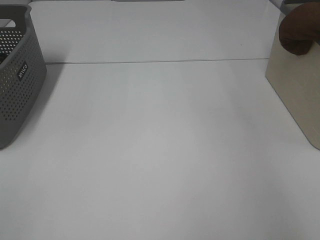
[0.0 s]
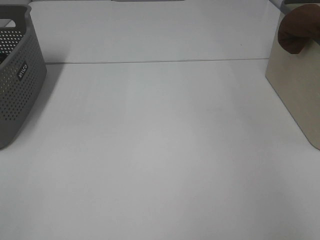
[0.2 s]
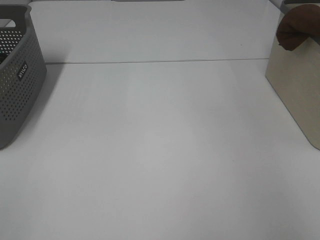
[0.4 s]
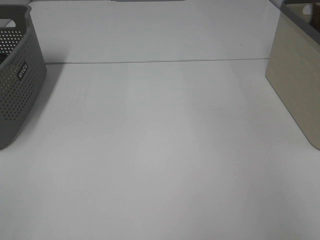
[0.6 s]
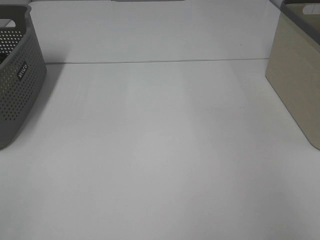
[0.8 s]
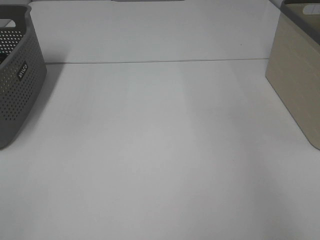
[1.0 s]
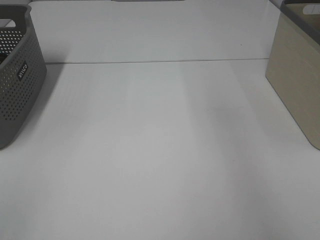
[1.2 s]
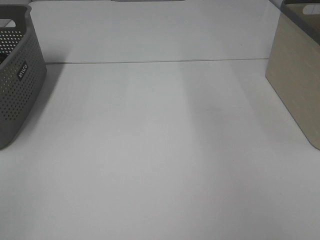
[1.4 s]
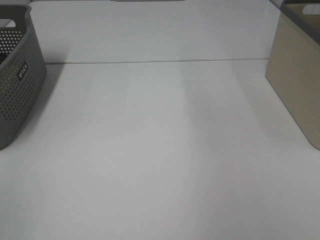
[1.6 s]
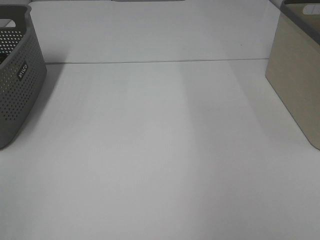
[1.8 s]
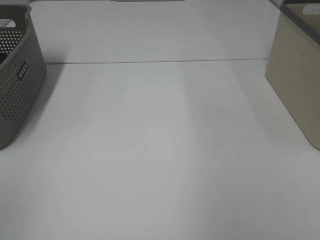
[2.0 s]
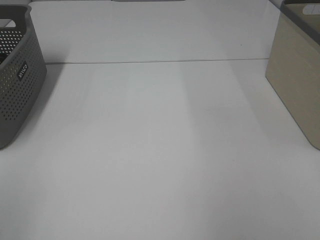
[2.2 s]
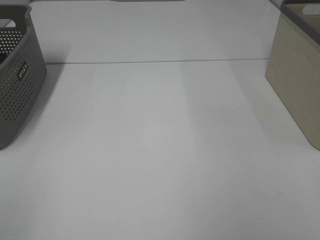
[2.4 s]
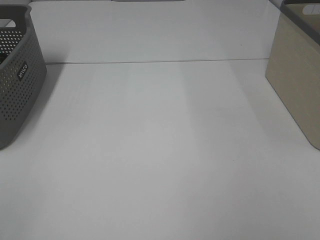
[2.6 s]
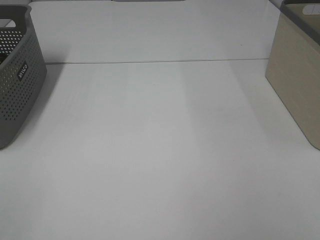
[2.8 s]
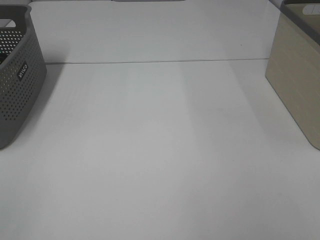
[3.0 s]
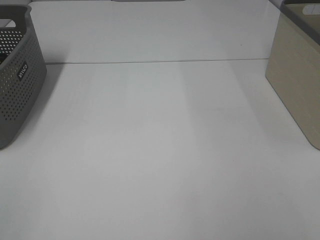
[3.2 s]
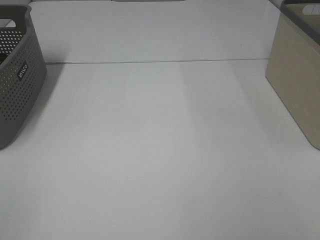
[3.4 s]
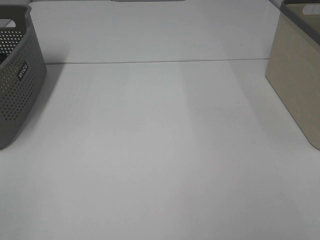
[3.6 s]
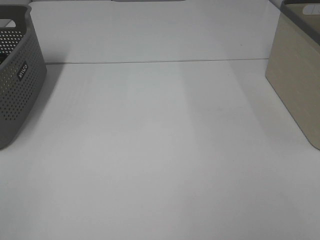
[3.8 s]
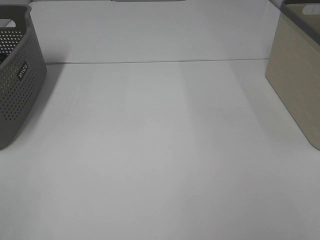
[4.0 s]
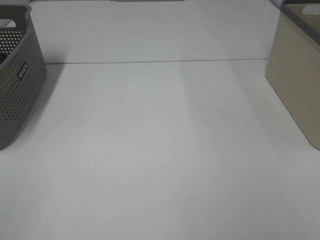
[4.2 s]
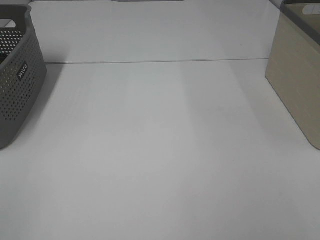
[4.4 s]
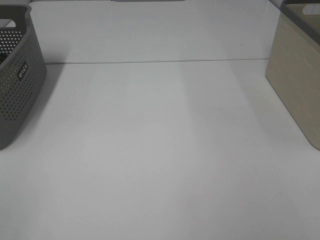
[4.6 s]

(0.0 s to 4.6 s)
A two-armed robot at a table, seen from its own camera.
0.0 s - 1.6 s: The right gripper is displaced to the left and backward by some 15 cm, and opens its fingers.

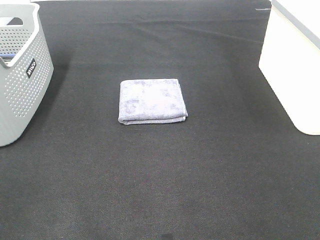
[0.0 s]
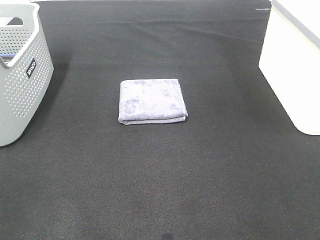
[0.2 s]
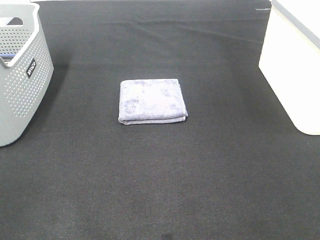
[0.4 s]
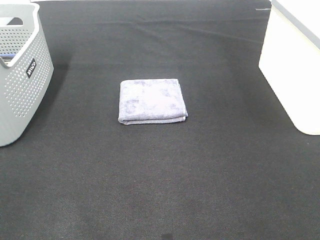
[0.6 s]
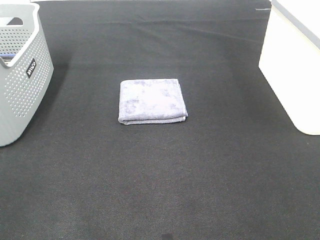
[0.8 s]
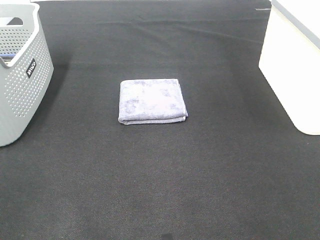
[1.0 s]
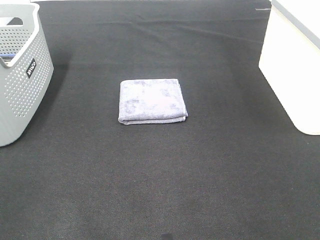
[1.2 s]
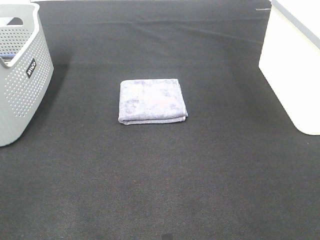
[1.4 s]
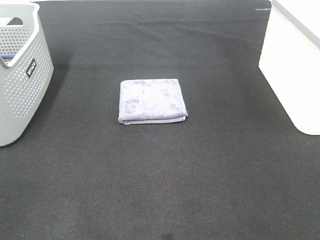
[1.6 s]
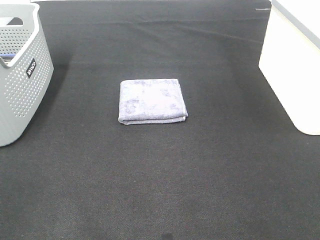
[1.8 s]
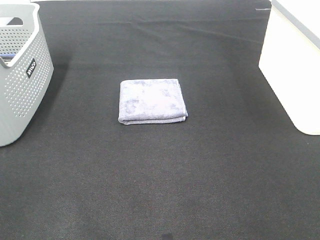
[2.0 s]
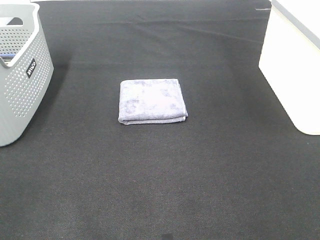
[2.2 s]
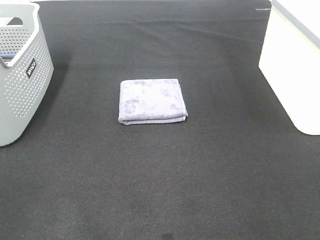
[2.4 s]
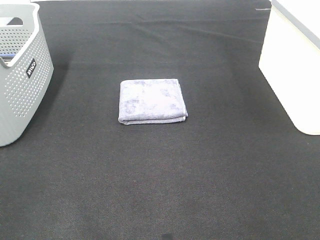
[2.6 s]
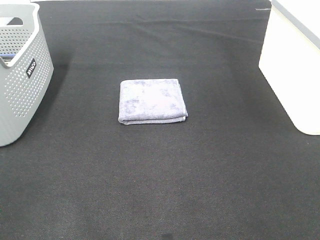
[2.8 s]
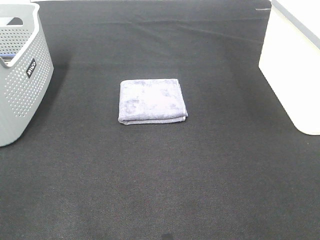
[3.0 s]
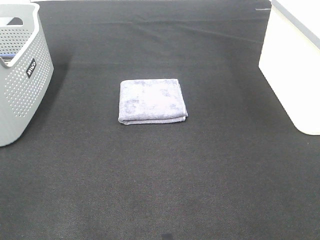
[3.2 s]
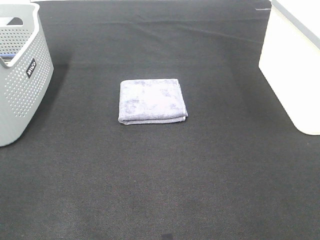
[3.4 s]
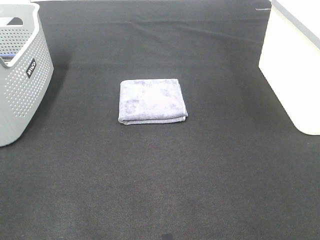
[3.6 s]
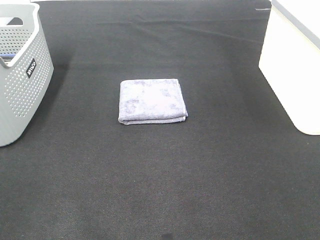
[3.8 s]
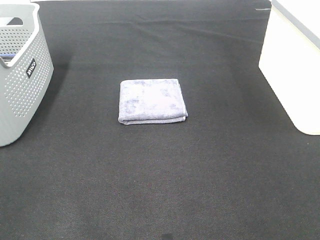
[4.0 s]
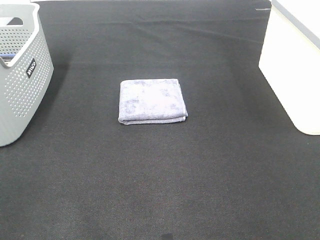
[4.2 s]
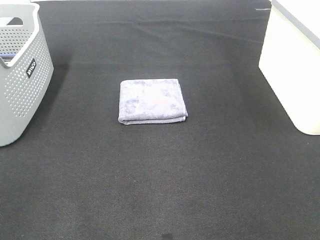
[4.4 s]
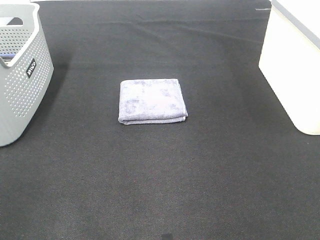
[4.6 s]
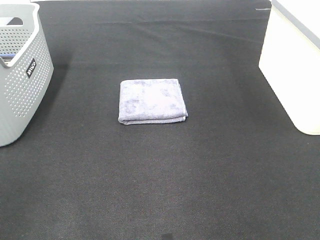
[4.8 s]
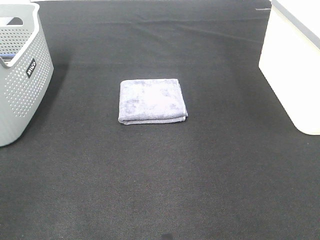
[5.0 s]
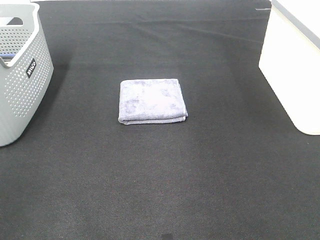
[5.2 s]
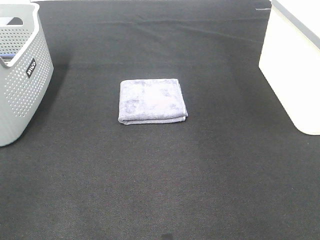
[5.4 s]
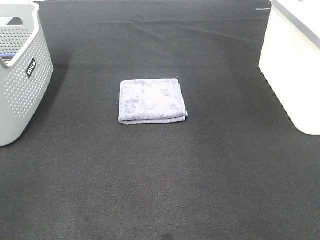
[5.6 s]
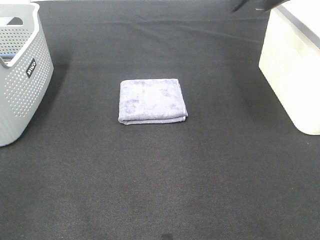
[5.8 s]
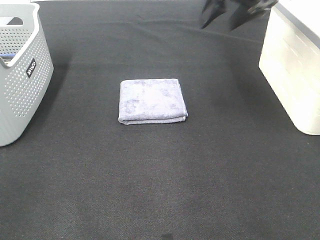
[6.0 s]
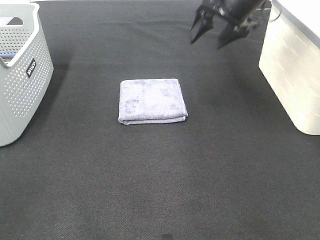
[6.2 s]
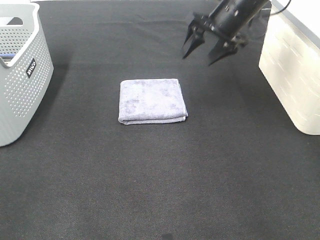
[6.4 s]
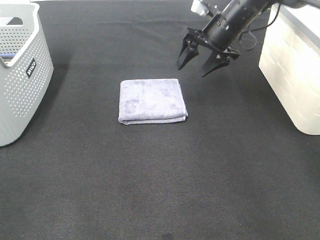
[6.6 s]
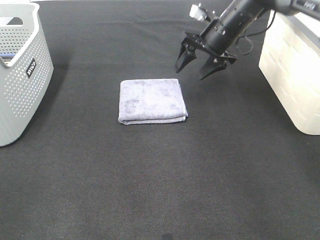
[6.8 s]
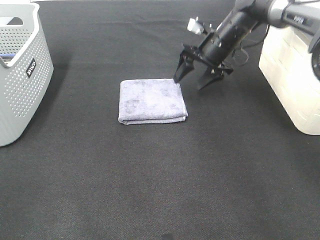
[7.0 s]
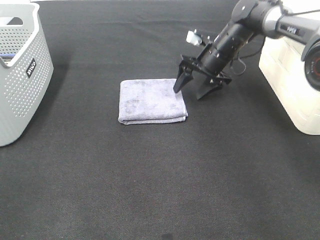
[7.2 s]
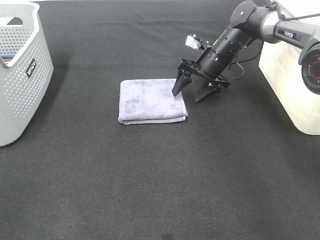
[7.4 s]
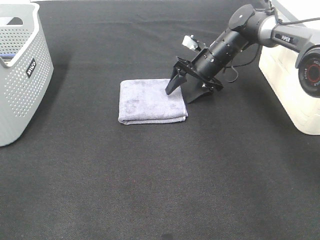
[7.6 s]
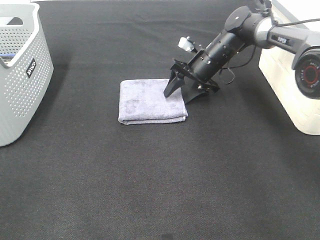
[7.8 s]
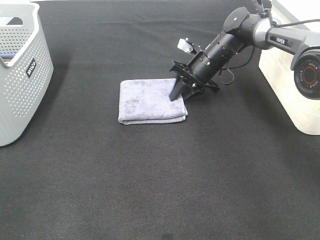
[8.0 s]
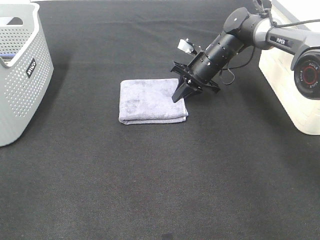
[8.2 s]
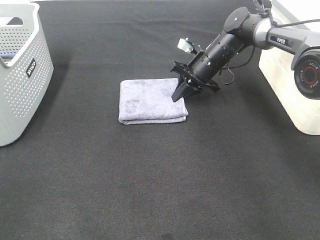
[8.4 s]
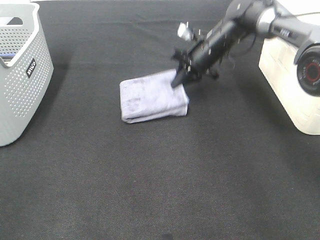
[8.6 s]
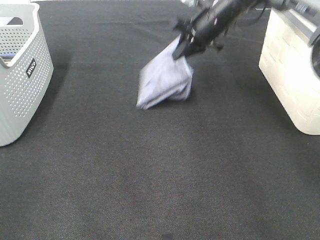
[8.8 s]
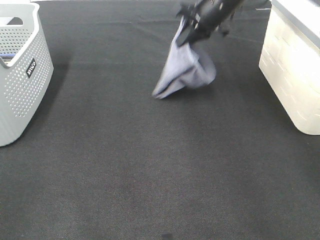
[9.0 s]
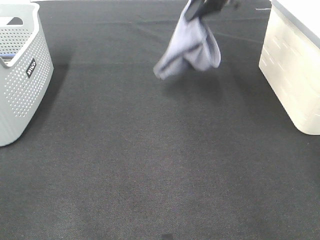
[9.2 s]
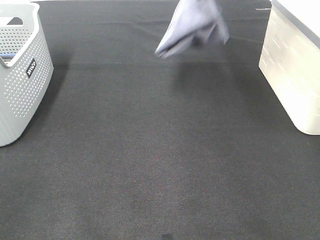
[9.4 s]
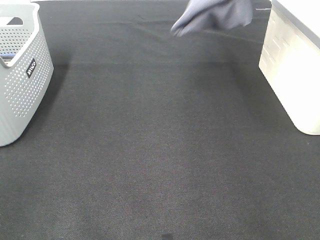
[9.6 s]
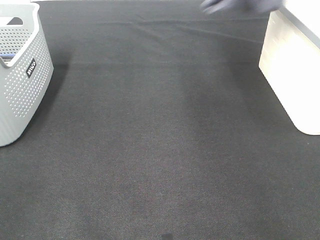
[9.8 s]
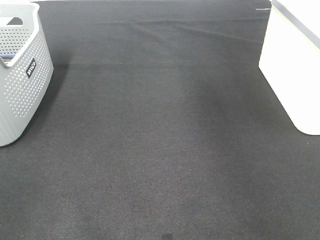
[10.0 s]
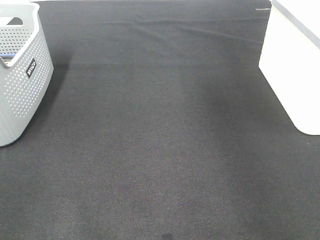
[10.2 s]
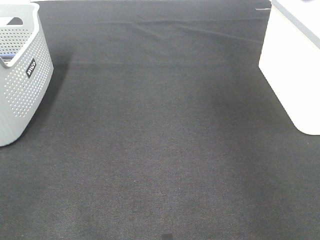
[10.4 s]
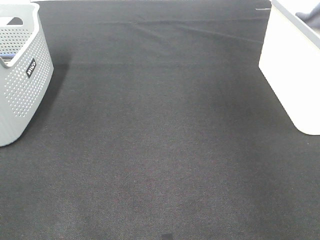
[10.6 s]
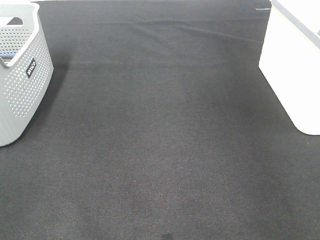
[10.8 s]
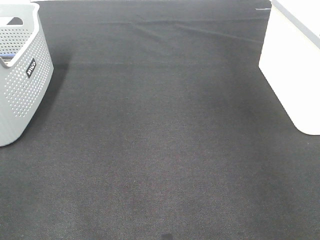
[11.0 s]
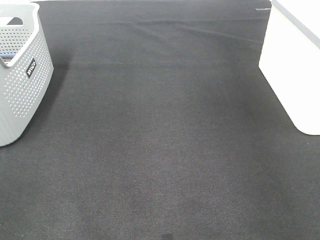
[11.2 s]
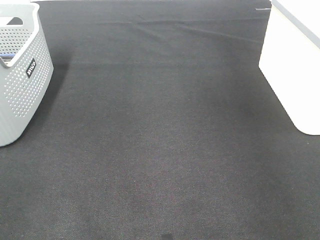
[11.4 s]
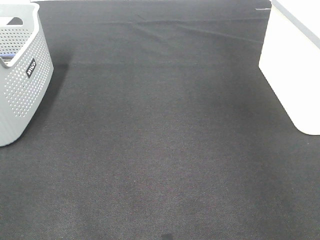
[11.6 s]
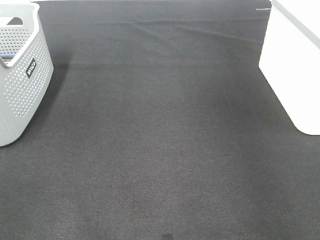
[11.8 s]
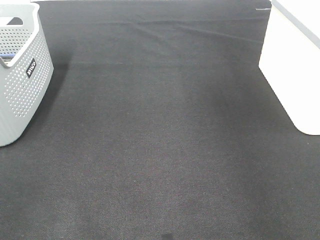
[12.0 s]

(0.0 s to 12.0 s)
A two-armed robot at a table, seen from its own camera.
Step, 0.0 s - 8.2 s: Right hand: grab the folded grey towel.
Step, 8.4 s - 11.4 s: Right hand: place the grey towel in right basket.
0.0 s - 3.0 s: The two grippers keep their place.
4.4 s - 6.0 s: The right gripper travels forward by approximately 35 cm.
6.0 s - 7.6 s: The right gripper moves downward, about 20 cm.
7.6 s - 9.0 s: The right gripper is displaced upward by approximately 15 cm, and closes.
9.0 s - 10.4 s: The right gripper shifts roughly 30 cm to the right and upward.

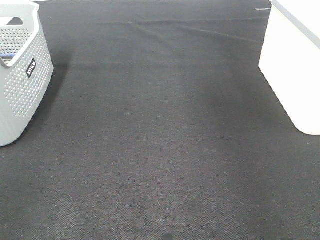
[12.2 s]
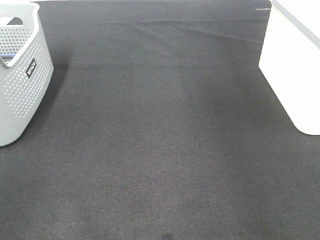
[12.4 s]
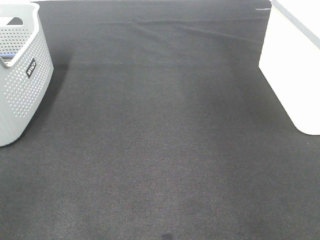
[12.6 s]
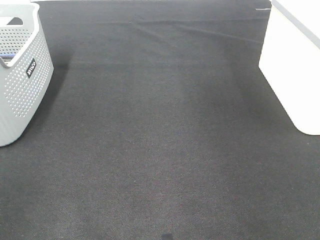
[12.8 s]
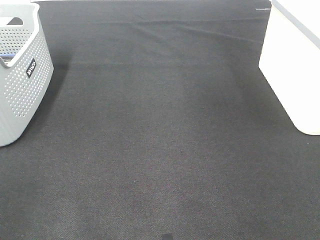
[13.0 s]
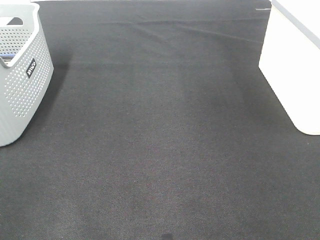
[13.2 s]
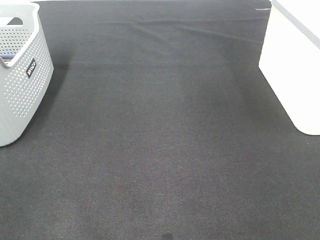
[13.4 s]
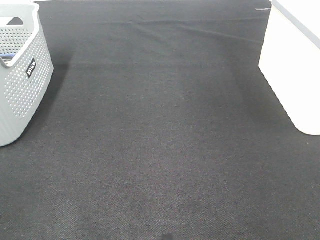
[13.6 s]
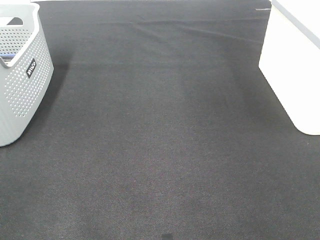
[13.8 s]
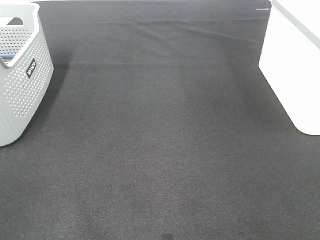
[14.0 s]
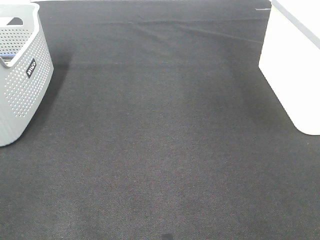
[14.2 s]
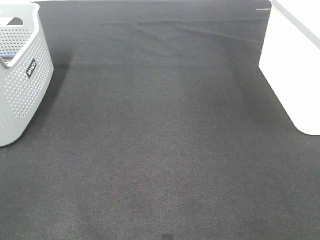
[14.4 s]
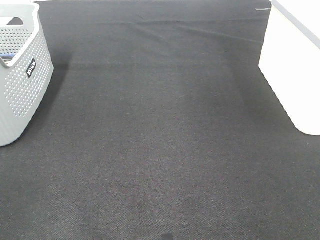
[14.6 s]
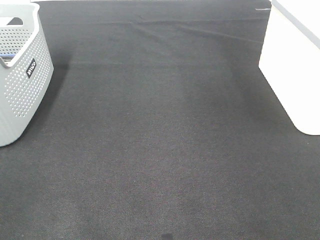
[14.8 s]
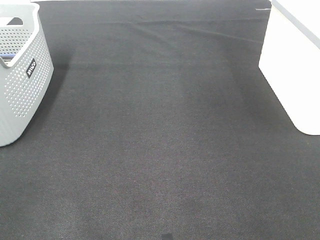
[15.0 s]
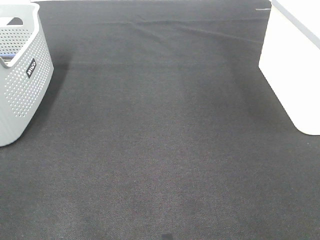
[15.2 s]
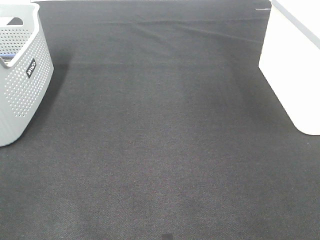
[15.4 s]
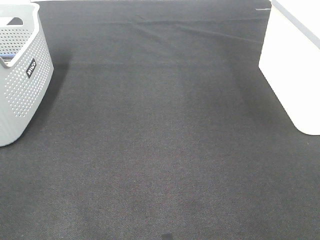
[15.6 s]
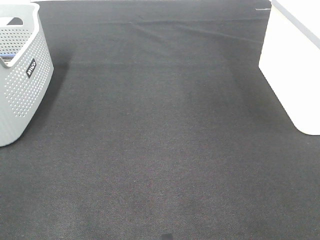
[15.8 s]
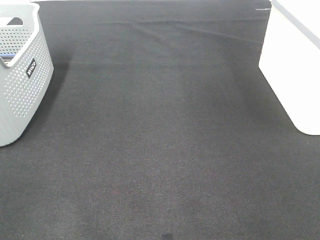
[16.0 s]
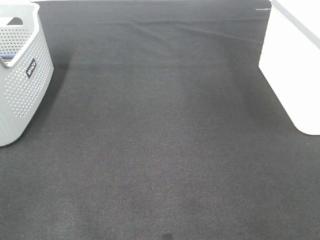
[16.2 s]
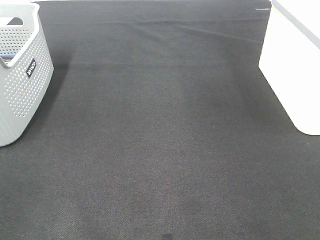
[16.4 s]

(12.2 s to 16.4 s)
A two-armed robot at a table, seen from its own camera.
15.0 s - 16.4 s: The two grippers keep their place.

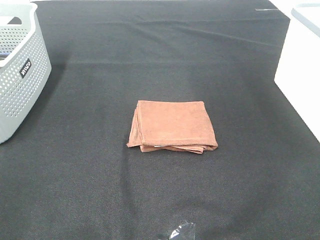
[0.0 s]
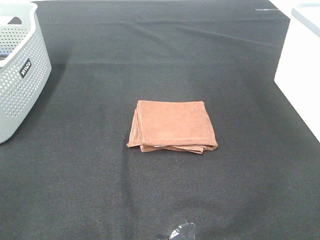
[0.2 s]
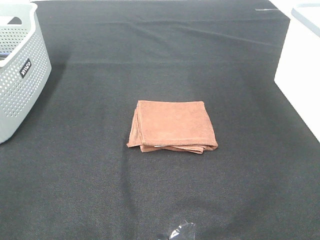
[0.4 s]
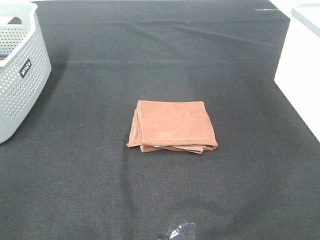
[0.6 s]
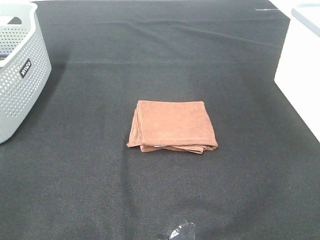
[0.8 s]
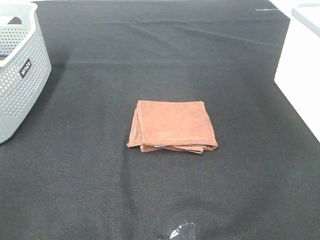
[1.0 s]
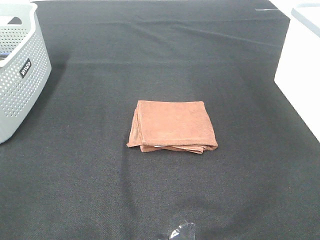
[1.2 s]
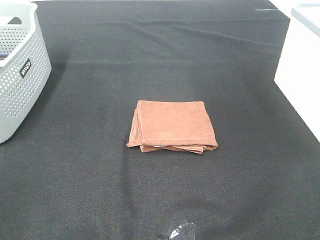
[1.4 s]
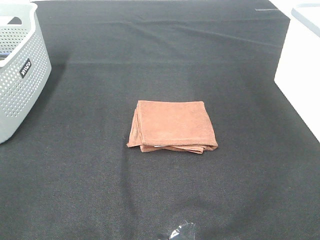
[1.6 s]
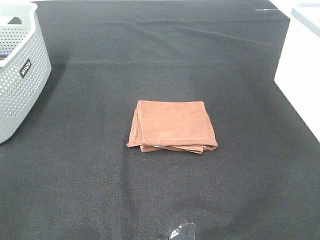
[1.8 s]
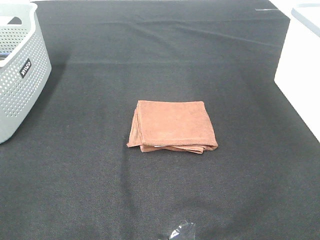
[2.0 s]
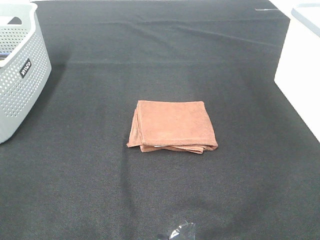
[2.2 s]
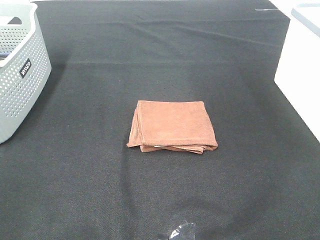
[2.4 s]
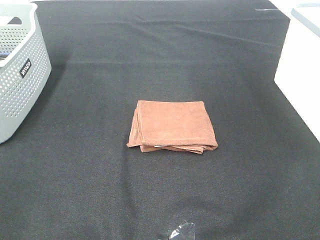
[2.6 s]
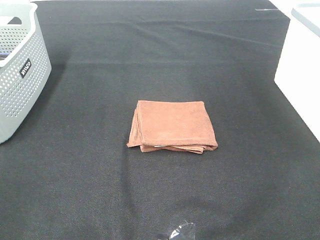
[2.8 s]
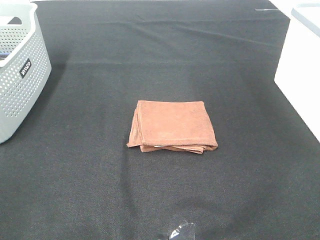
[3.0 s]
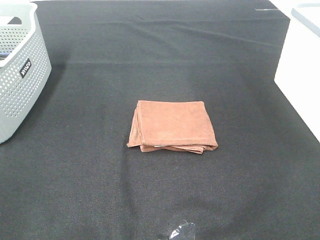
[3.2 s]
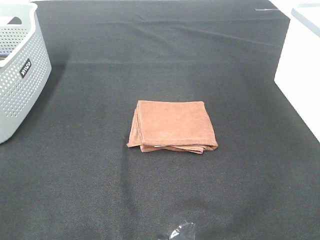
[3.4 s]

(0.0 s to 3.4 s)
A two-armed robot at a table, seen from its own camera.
0.0 s - 3.4 s: Both grippers stay about where they are.
